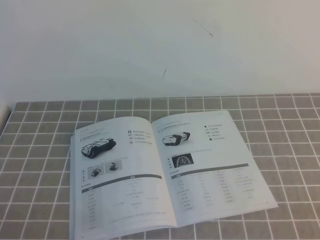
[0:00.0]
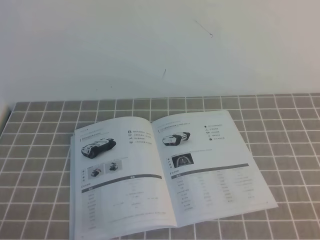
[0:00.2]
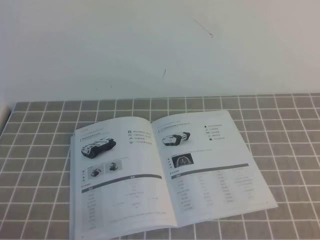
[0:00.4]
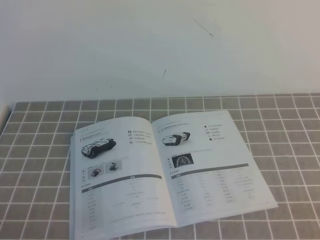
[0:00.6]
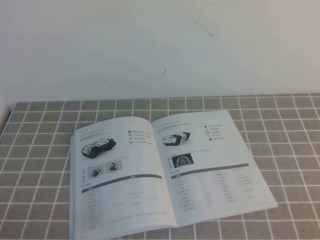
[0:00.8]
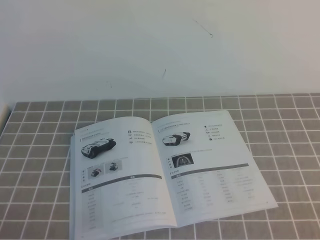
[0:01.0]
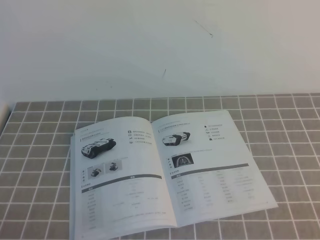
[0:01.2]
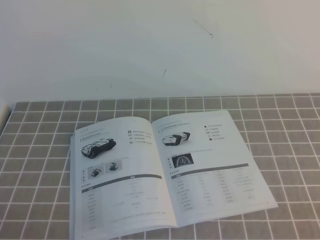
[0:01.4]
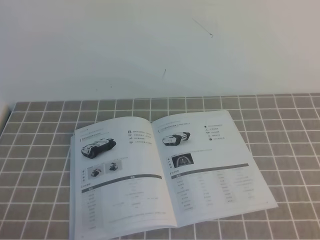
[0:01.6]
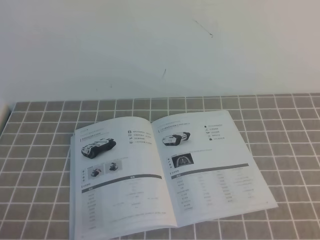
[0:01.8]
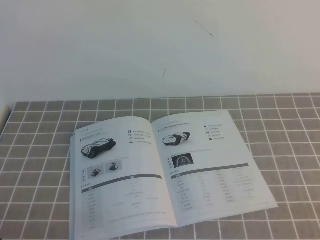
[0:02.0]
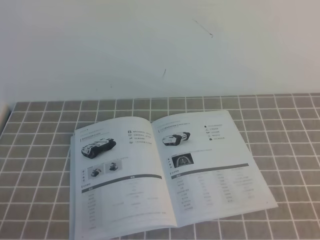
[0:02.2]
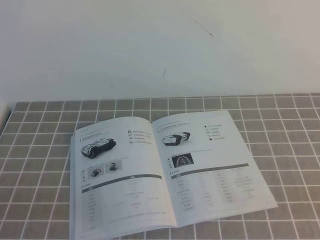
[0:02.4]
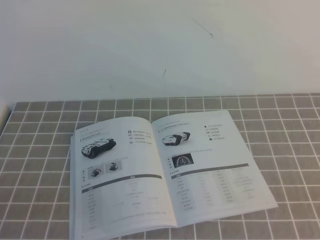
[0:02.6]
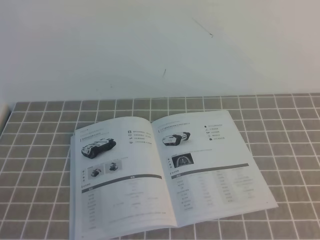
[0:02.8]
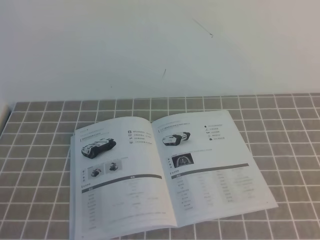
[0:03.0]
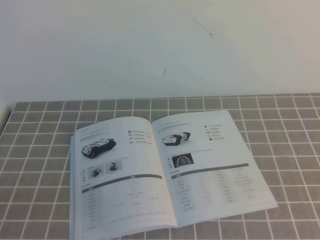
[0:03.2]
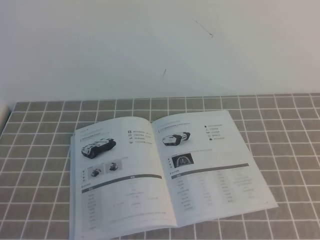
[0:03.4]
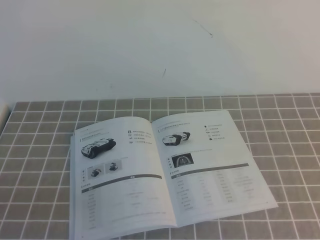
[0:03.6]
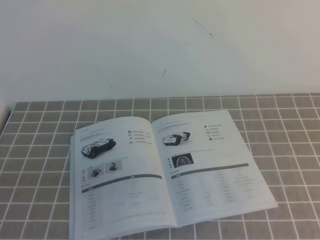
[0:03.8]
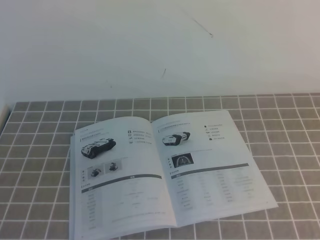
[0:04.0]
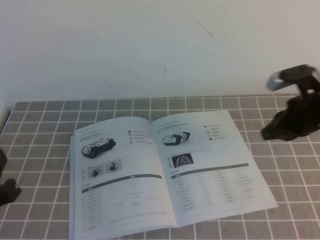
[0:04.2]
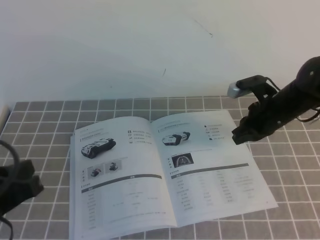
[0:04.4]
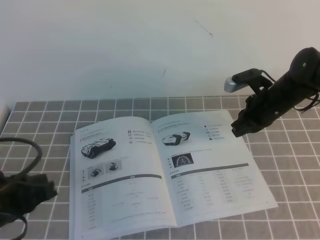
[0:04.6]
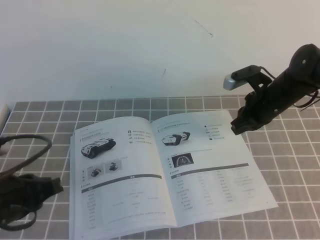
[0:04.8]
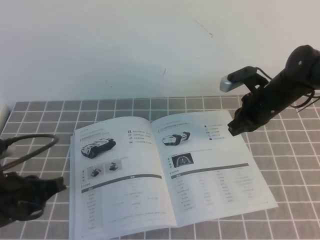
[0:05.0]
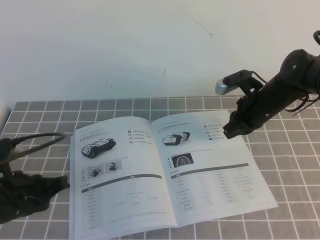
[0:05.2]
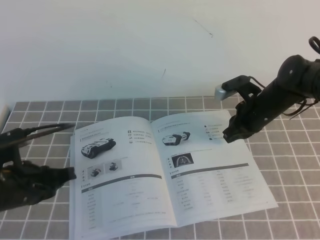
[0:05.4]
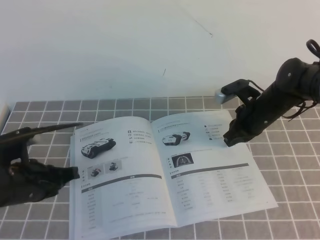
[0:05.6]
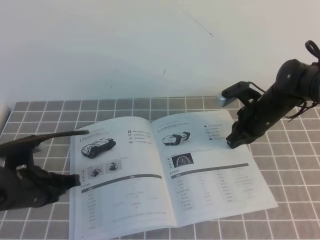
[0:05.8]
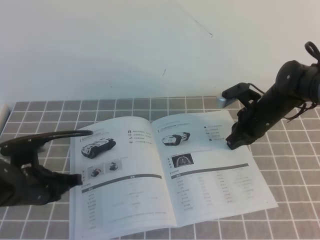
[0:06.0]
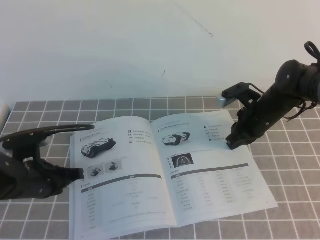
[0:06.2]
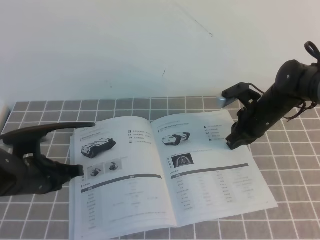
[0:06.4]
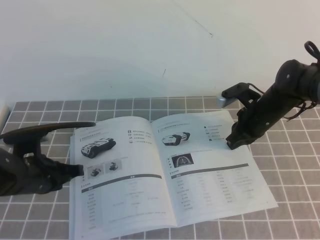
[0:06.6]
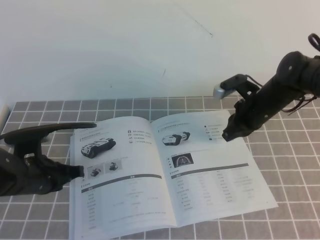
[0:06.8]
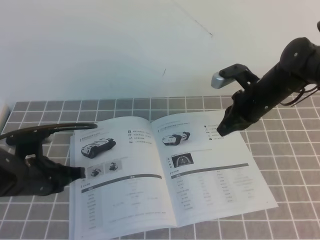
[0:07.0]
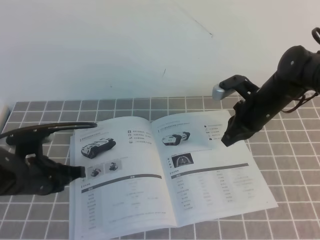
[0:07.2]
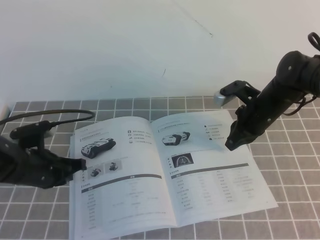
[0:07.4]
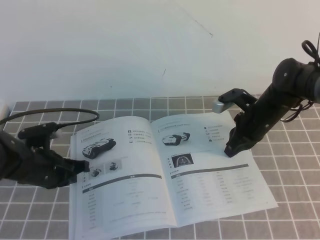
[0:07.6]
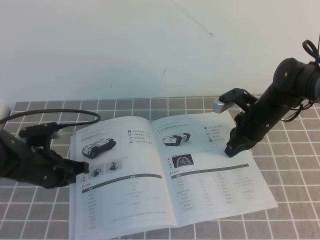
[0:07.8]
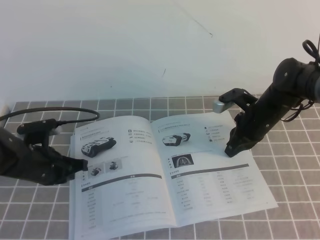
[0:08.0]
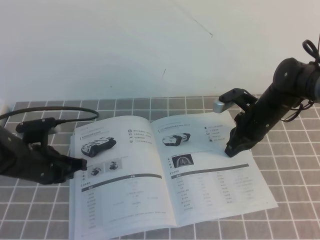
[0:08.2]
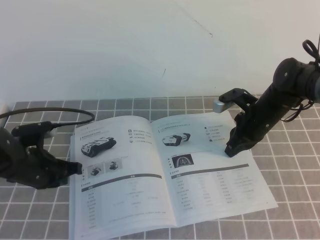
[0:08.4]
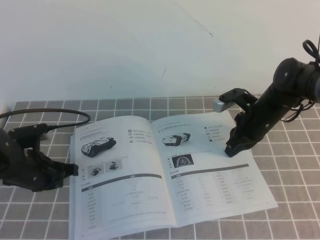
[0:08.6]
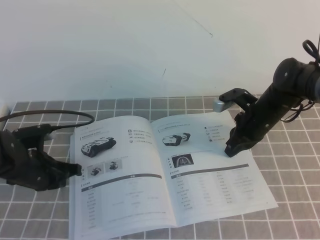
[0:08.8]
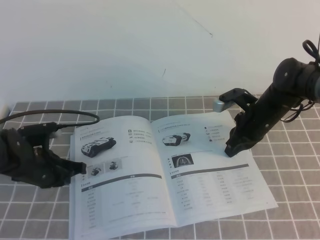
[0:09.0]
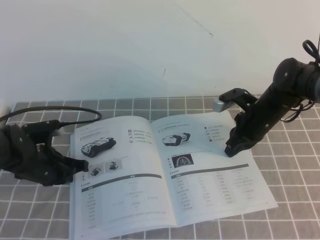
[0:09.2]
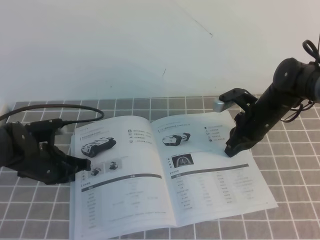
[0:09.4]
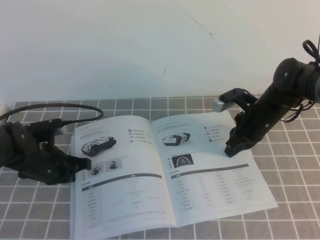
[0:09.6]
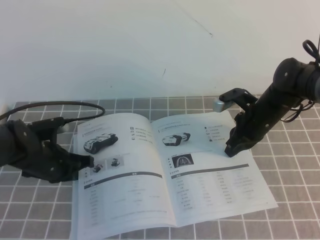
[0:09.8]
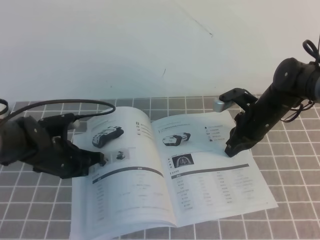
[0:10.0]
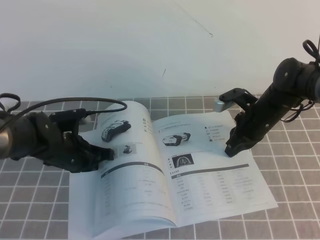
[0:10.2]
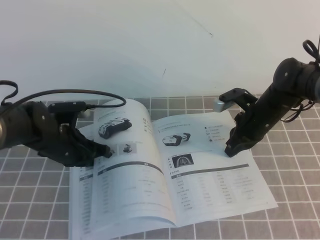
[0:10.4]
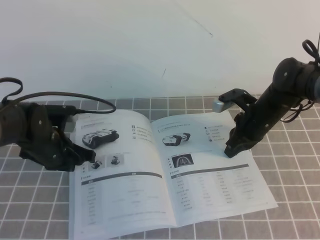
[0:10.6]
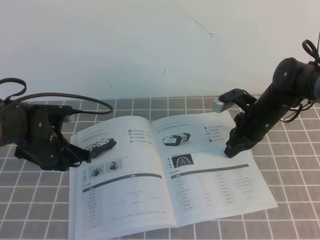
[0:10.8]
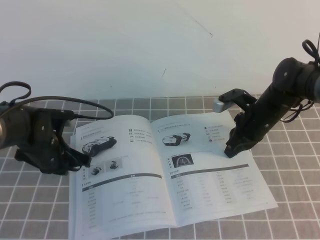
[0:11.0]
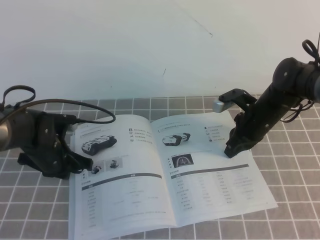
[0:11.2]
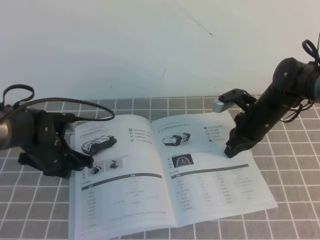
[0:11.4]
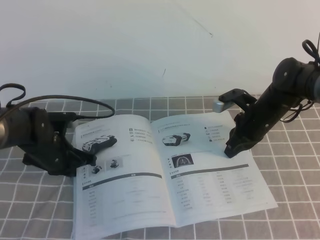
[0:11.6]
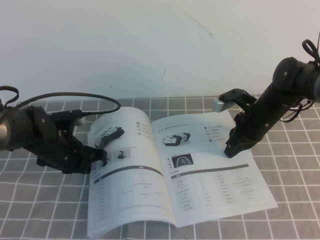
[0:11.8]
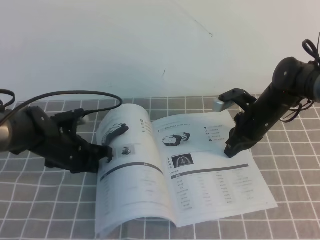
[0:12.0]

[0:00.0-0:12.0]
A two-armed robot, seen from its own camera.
Task of the whole recording: on the grey tablecloth, hold the book with one hand and close it with the other.
0:03.0 to 0:04.4: The left gripper goes about 10 cm forward. Meanwhile the right gripper goes some 35 cm forward.
0:04.4 to 0:06.0: The left gripper heads forward and downward, covering about 20 cm. Meanwhile the right gripper moves downward, forward and to the left, approximately 10 cm.
0:06.0 to 0:09.0: The grippers stay close to where they were, moving slightly.
0:09.0 to 0:10.4: The left gripper moves to the right, some 5 cm.
0:10.4 to 0:12.0: The grippers stay close to where they were, moving slightly.

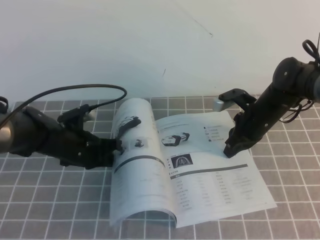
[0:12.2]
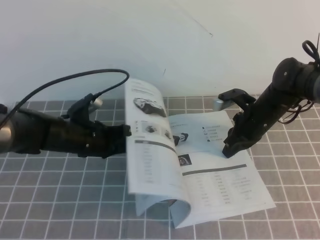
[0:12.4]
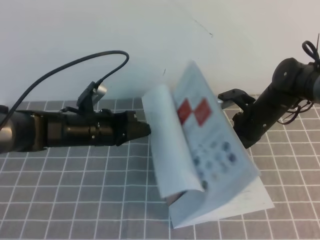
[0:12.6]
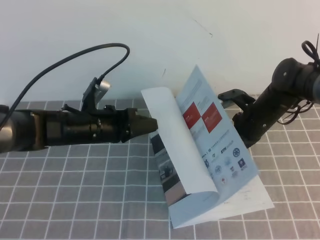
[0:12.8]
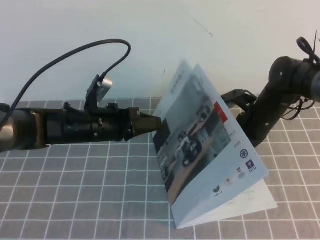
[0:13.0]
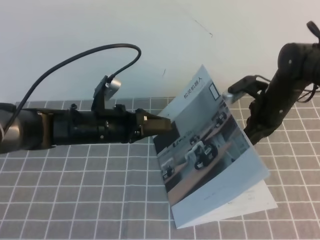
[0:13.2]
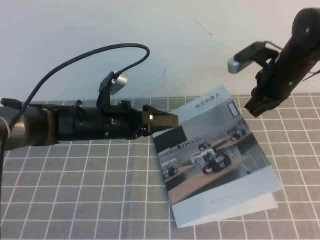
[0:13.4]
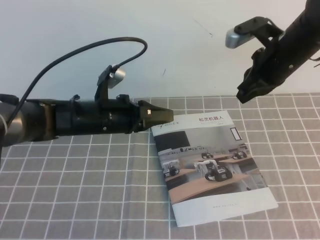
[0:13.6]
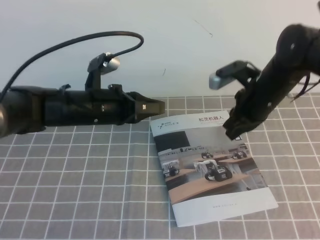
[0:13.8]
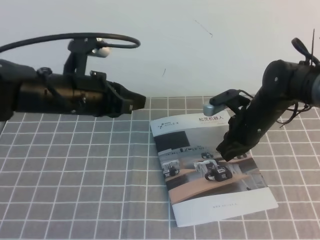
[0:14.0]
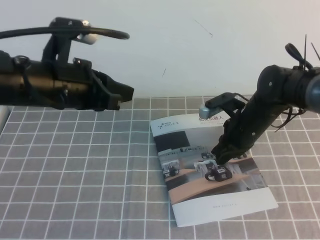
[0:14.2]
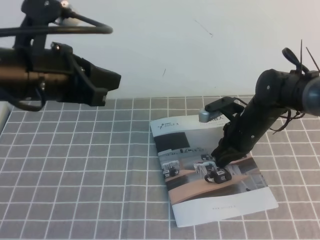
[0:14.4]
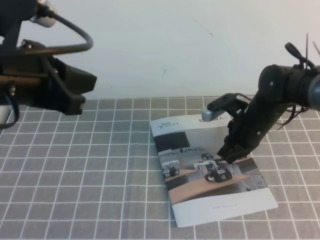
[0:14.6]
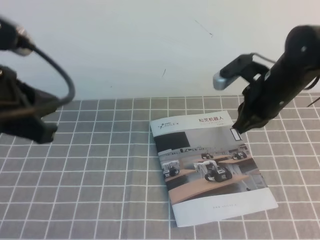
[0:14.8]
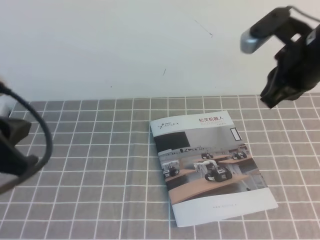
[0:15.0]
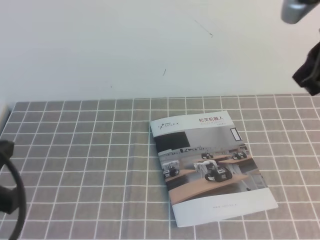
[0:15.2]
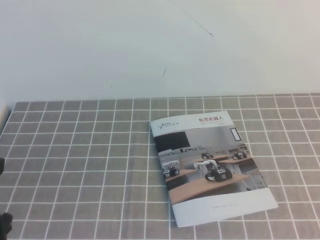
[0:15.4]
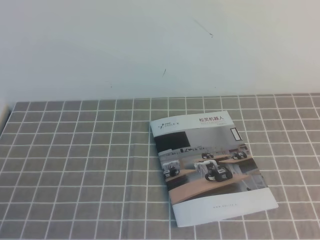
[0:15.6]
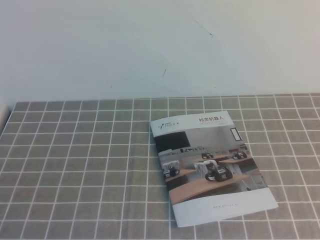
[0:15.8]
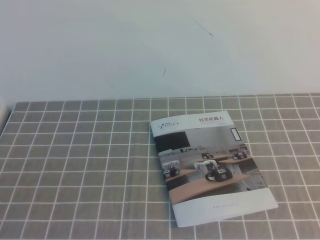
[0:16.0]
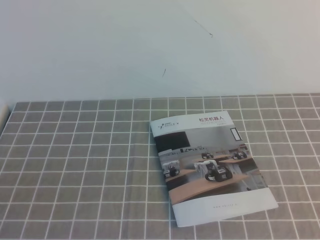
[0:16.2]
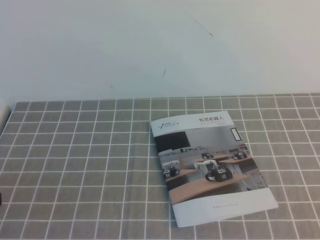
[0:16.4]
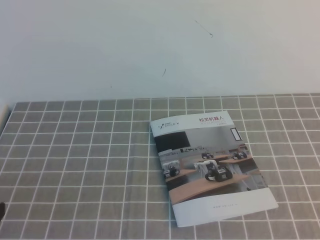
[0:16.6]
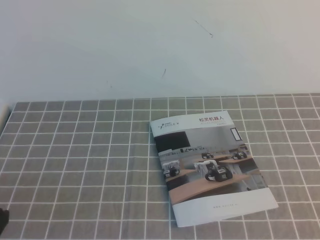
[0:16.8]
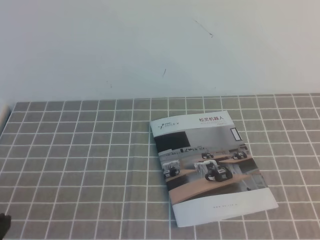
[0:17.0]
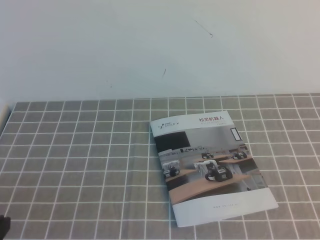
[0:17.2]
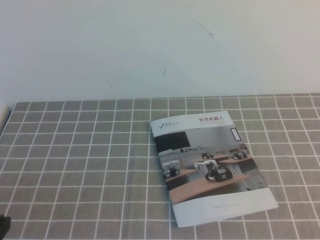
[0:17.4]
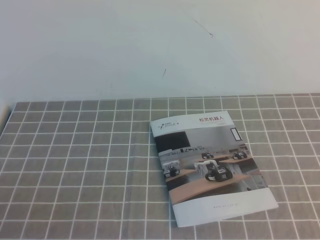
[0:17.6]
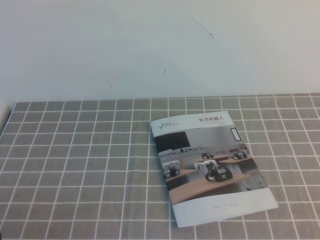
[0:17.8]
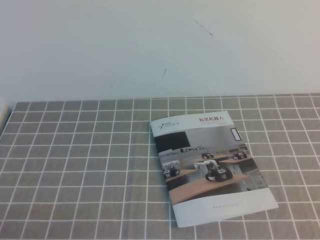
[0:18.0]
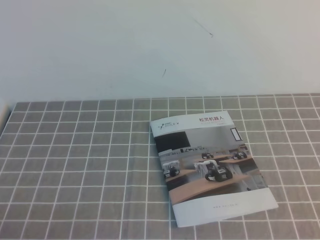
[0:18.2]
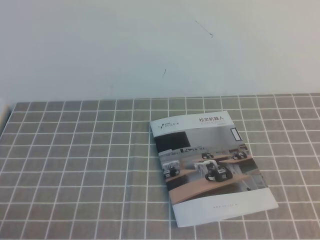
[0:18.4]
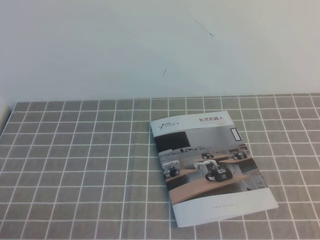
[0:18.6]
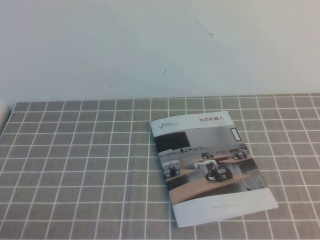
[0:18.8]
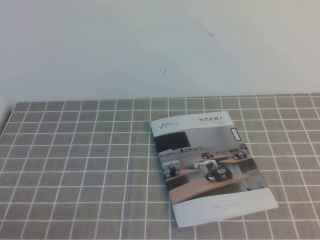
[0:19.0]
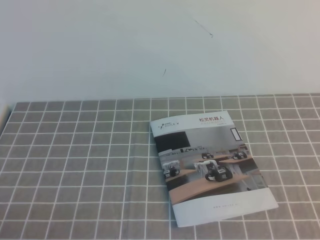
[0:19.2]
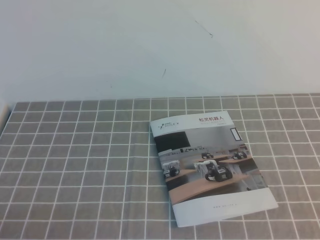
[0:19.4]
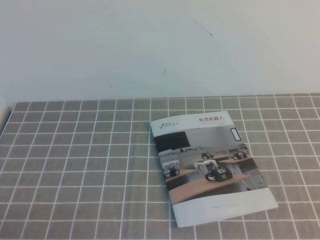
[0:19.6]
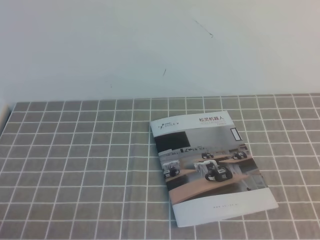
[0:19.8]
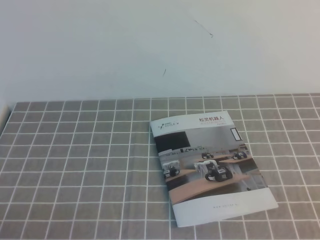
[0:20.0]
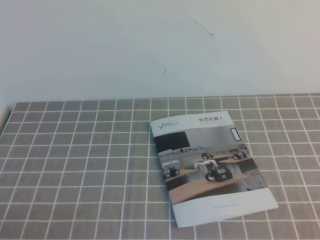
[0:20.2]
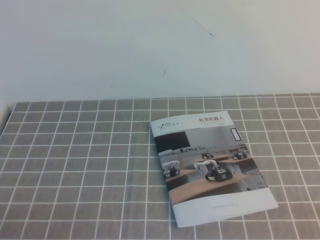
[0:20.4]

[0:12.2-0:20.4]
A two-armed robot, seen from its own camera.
Task of the whole recording: on the grey tablecloth, hold the book with one hand and close it with the other.
Step, 0:12.2 to 0:20.4: Close the open book.
0:12.2 to 0:13.8: The right gripper moves upward, roughly 10 cm; the left gripper heads upward and to the right, covering some 10 cm, and opens its fingers.
0:13.8 to 0:15.4: The left gripper moves backward, to the left and upward, roughly 30 cm, and closes its fingers; the right gripper goes roughly 25 cm upward and backward.
0:15.4 to 0:17.2: The left gripper shifts roughly 10 cm downward and backward. Meanwhile the right gripper heads backward, downward and to the right, covering roughly 30 cm.

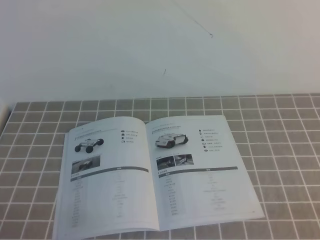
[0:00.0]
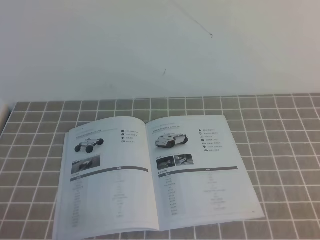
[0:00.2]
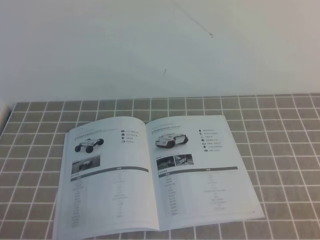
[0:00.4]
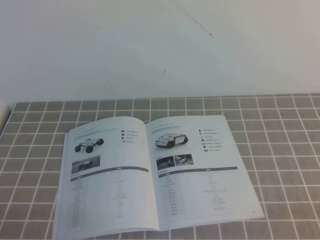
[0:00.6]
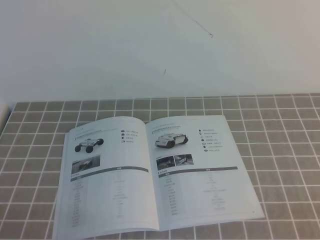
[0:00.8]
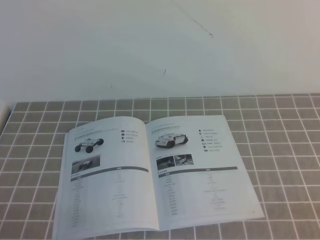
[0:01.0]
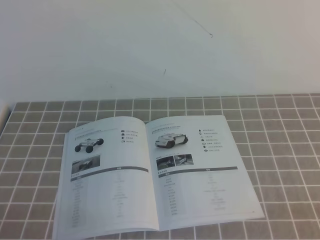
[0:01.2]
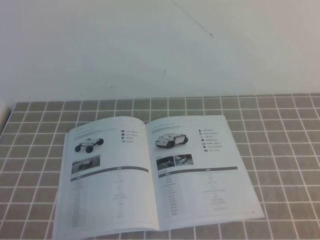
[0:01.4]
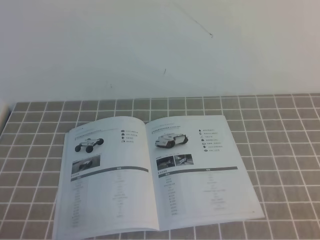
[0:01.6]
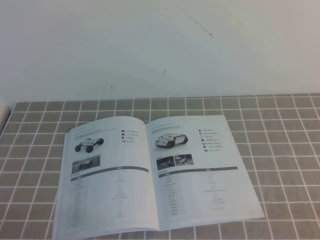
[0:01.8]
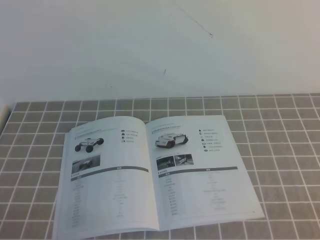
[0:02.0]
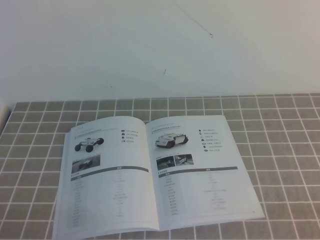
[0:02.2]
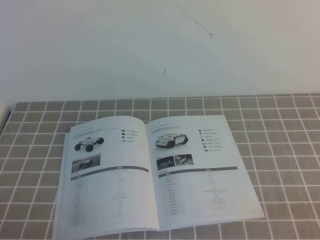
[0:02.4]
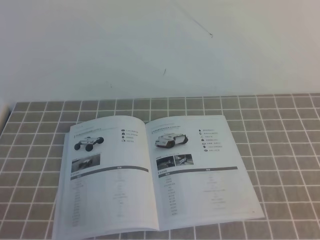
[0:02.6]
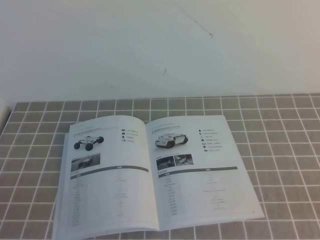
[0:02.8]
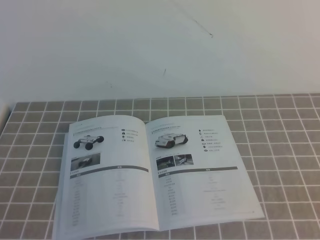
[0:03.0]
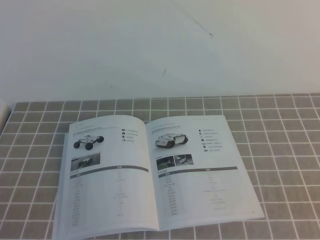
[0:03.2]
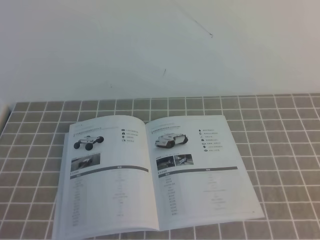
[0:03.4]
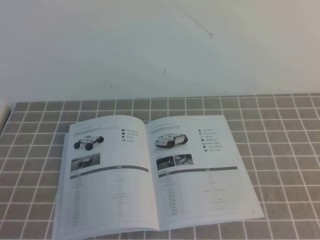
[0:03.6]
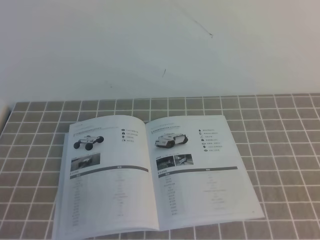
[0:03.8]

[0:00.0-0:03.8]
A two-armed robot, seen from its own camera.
Task of the whole recording: on the grey tablecloth, hold the book with one hand and close it with the other.
0:00.0 to 0:01.2: Neither gripper changes place.
